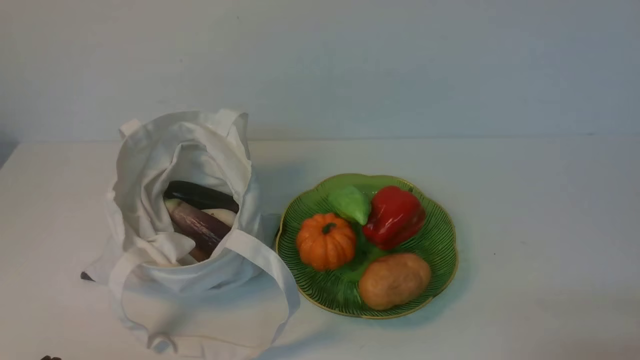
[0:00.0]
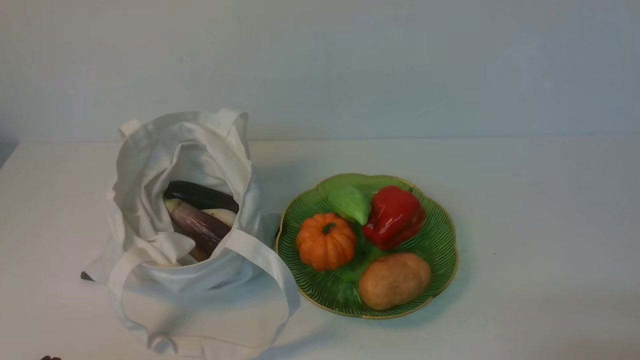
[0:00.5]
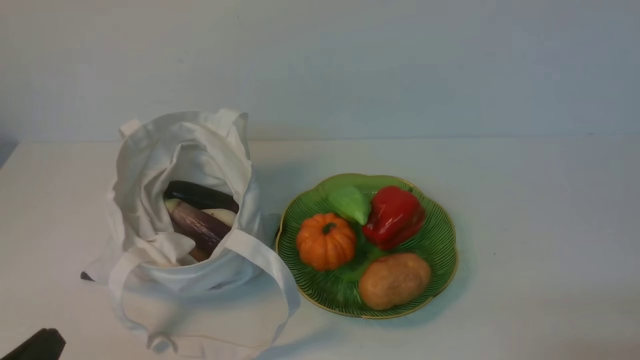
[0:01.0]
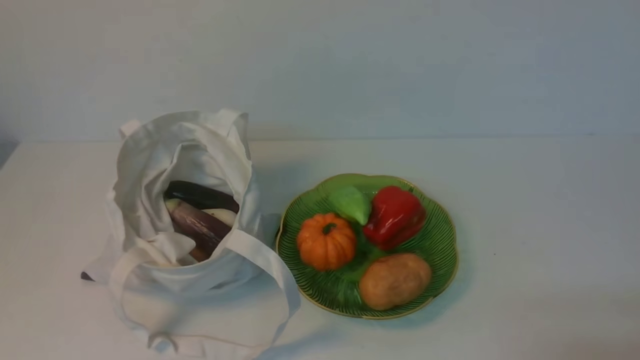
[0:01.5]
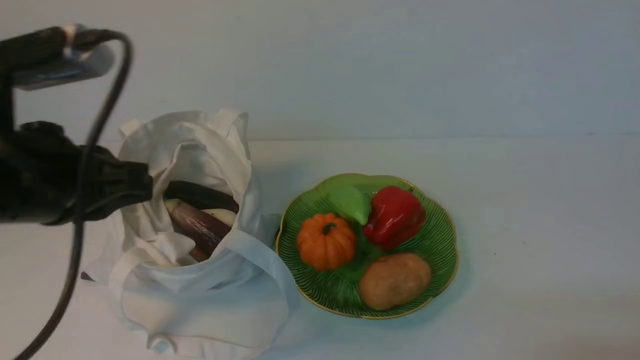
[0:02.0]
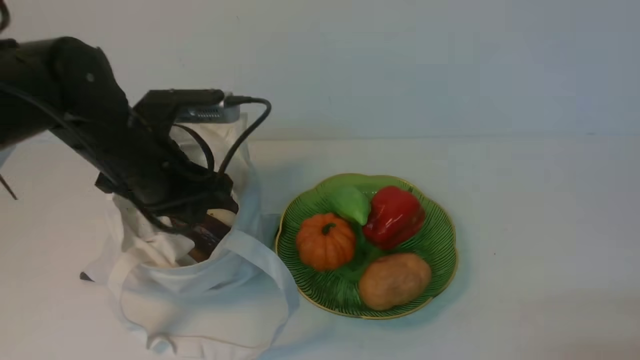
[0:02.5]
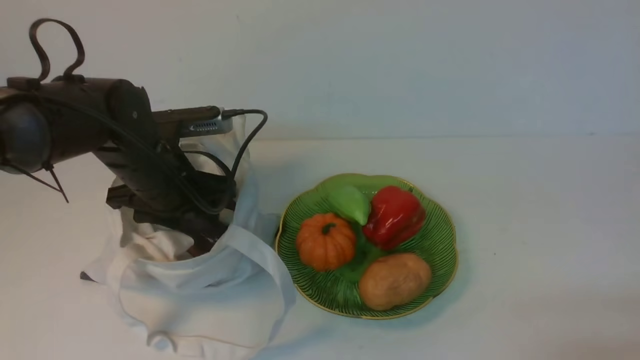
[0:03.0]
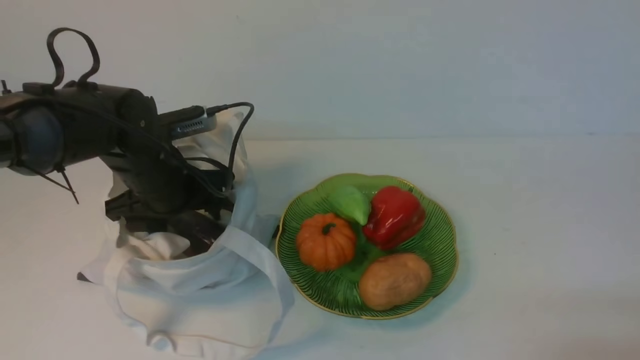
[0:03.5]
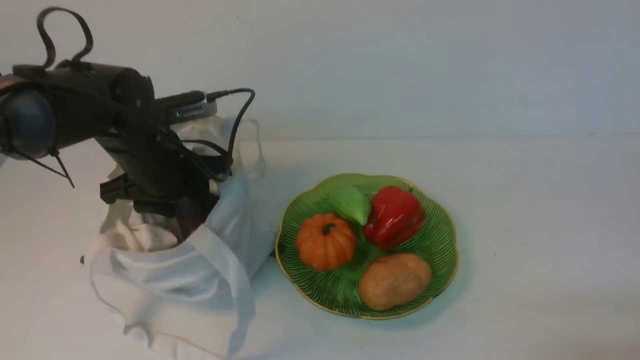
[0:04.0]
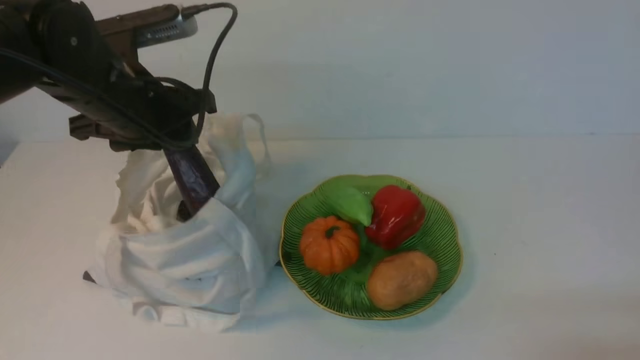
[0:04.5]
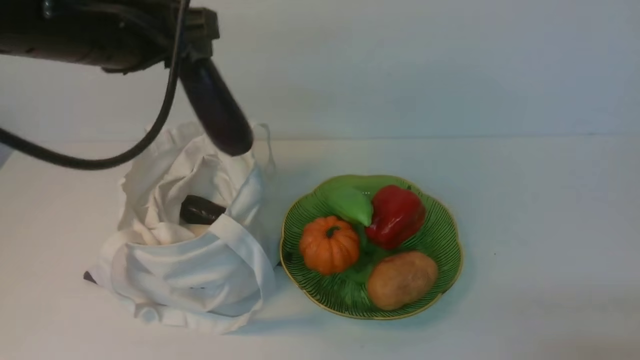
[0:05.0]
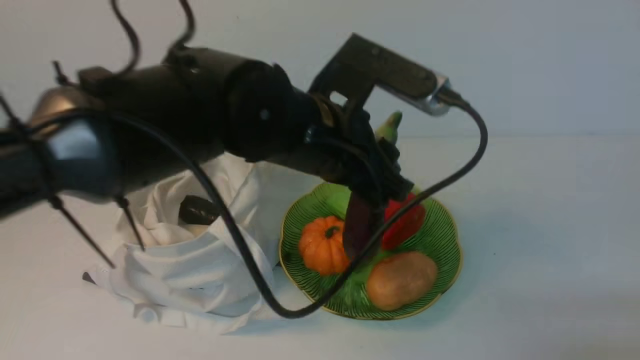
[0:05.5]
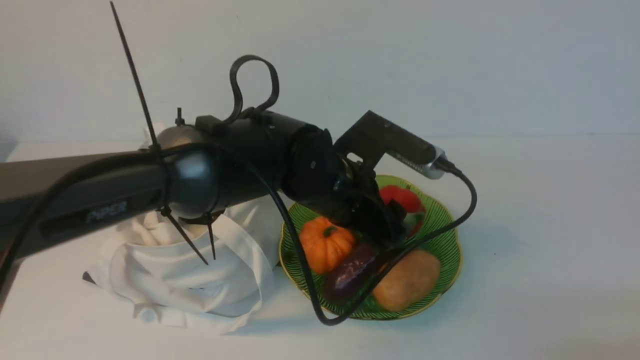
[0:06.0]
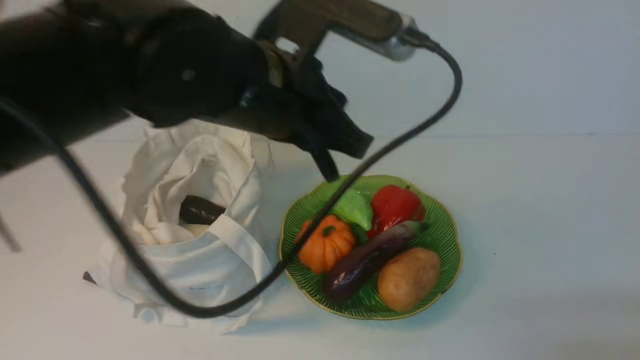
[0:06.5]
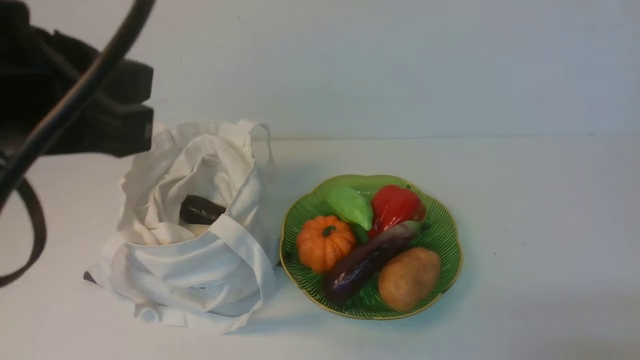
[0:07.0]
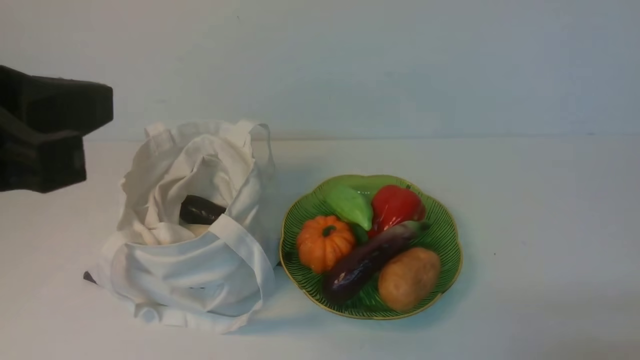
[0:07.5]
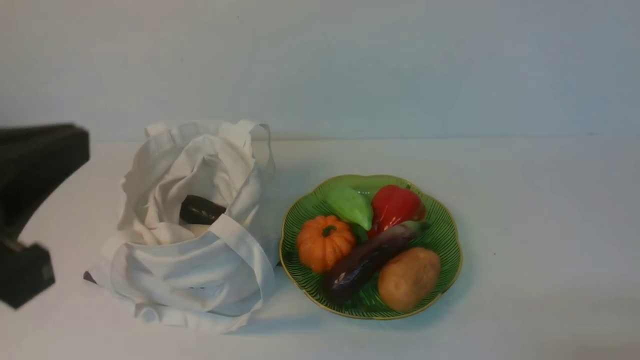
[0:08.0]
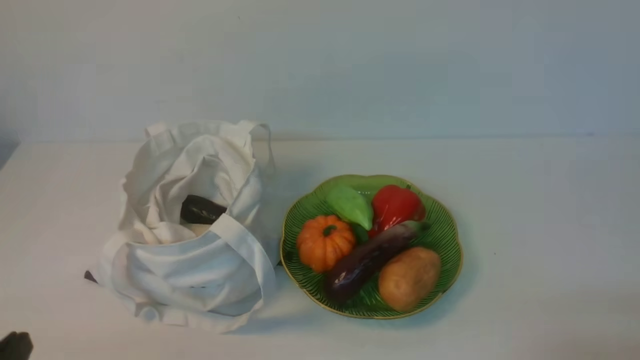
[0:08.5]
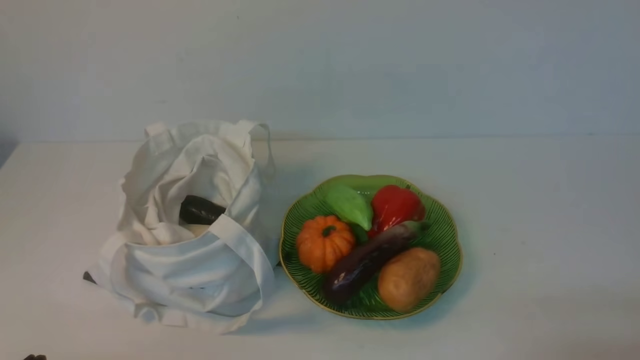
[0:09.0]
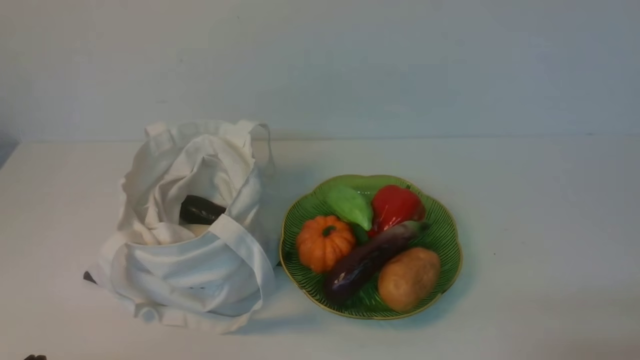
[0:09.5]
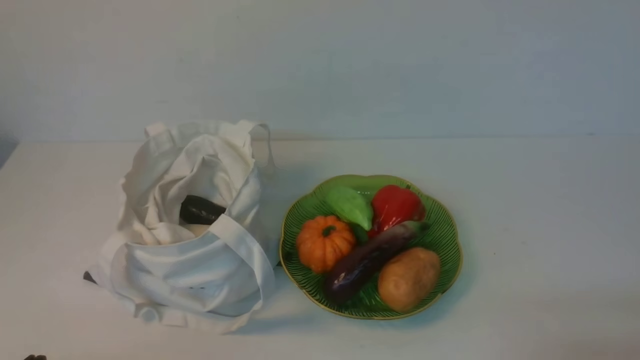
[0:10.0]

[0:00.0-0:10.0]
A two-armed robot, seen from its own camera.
Task of the whole recording: take vegetables from cloth bag on white table place on plate.
Step, 0:00.0 to 0:03.5: Grasp the eggplant with left gripper.
Step, 0:04.0 to 0:06.0: Place the eggplant on the plate with left gripper.
0:02.0 to 0:04.0: The left gripper is displaced forward and downward by about 25 cm, and opens up.
0:04.0 to 0:06.0: The left gripper travels to the right by approximately 20 cm.
0:06.0 to 0:08.0: The left gripper moves backward, to the left and upward, some 35 cm, and closes.
0:08.0 to 0:10.0: The left gripper goes roughly 20 cm downward.
